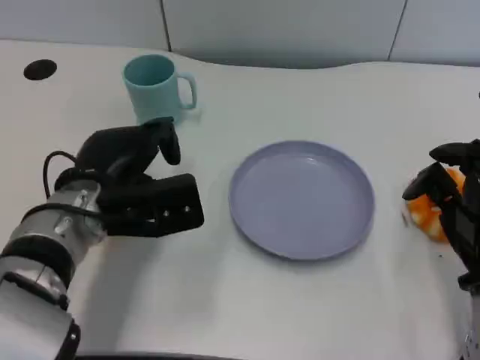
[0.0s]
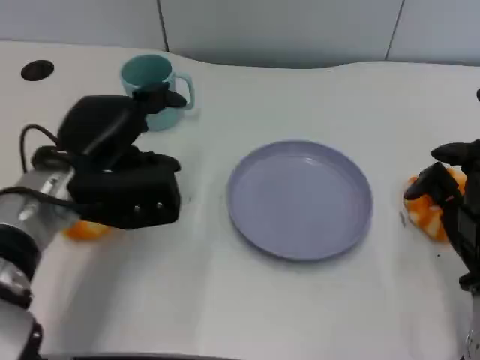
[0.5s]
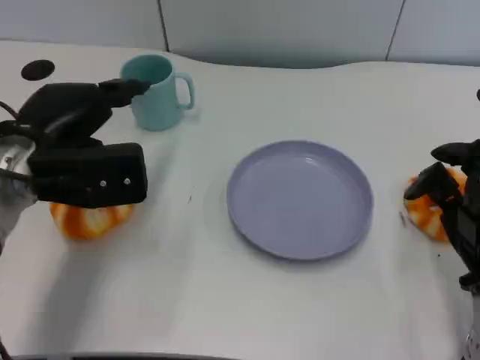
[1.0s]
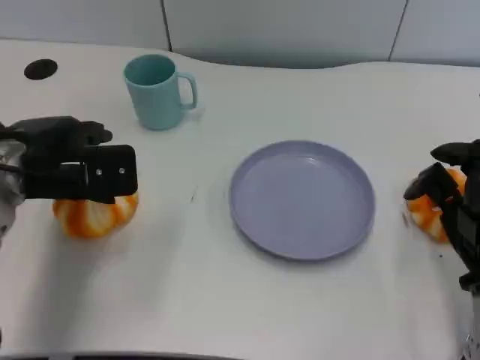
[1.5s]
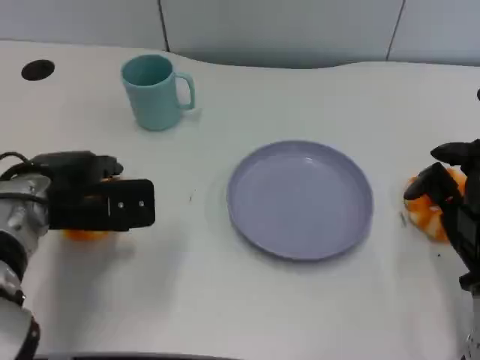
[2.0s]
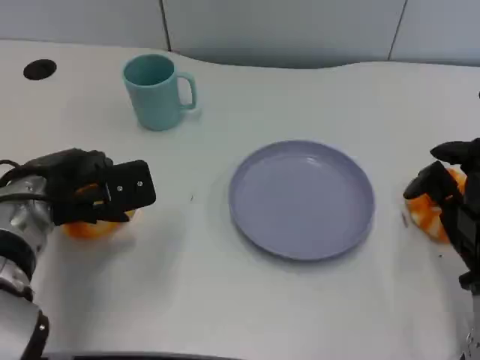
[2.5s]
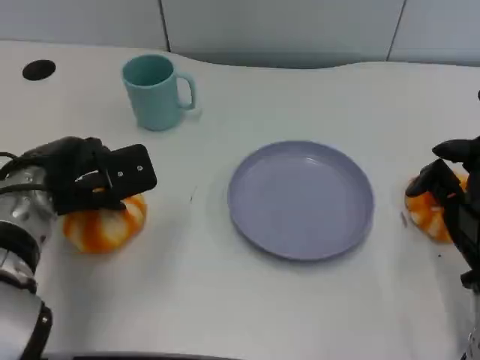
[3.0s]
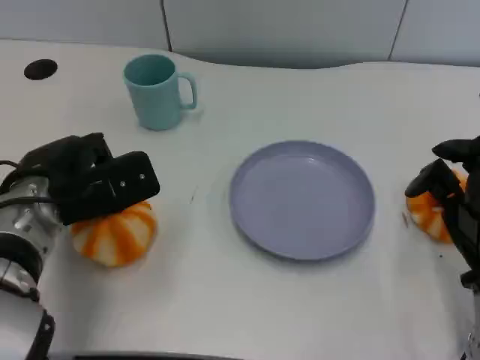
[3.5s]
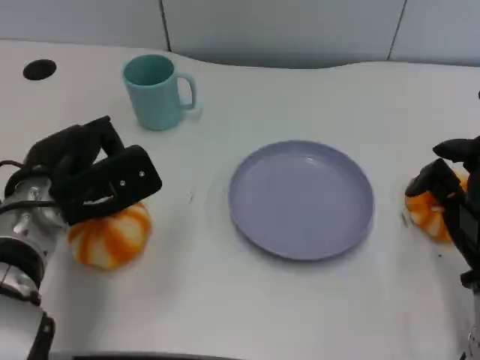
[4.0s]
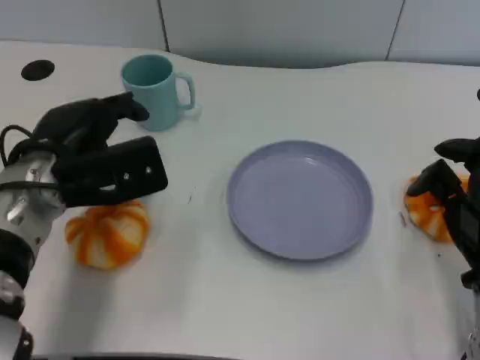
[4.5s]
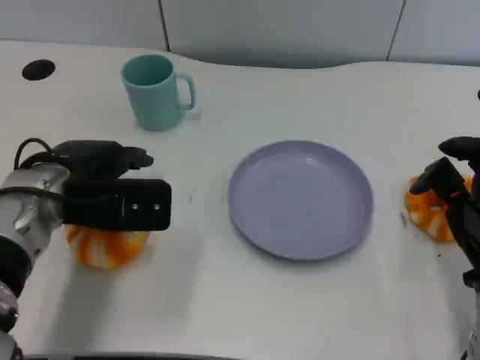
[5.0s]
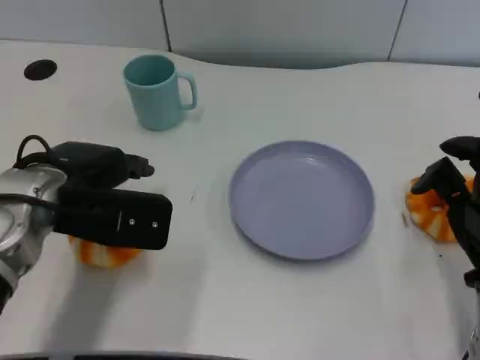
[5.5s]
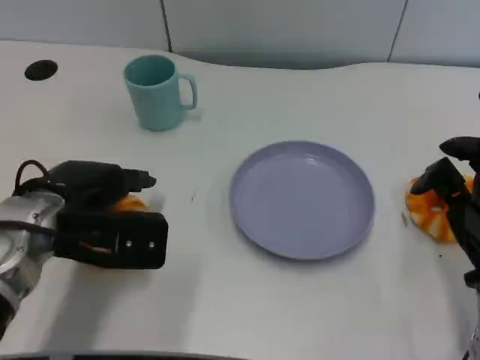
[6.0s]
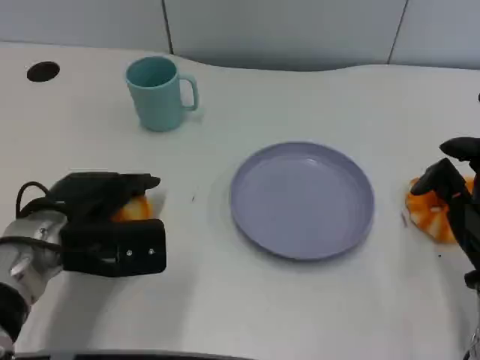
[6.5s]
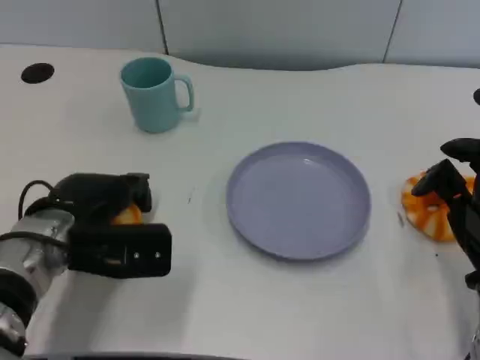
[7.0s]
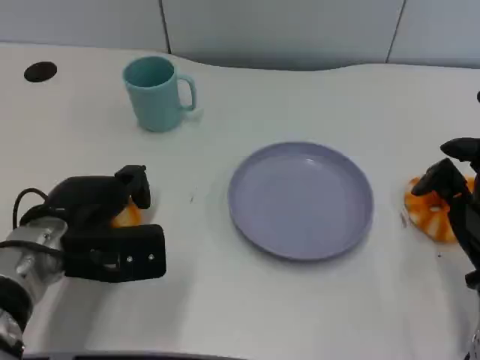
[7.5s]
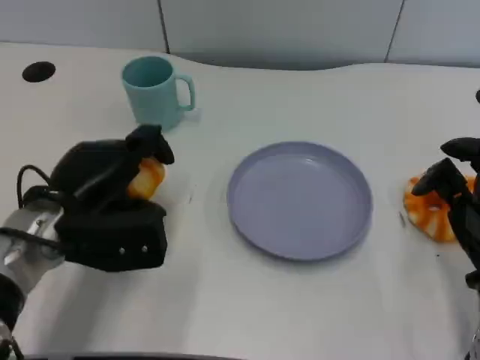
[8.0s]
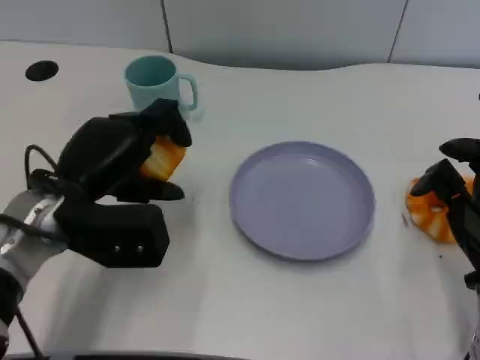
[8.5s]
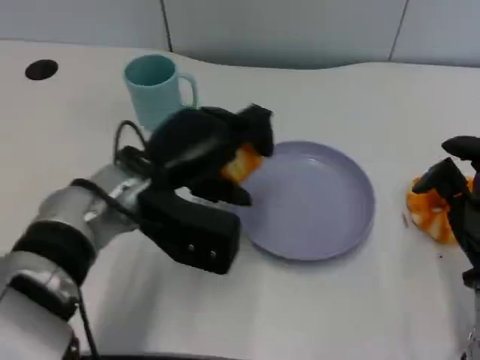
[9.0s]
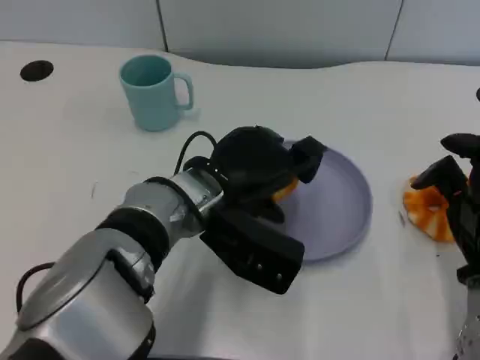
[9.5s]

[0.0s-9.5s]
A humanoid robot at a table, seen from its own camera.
Task of the whole recording: Grasp the bread from the table and place it into the plate.
0.0s to 2.0s: The left hand moves to the left, about 5 cm.
5.5s to 7.5s: The left hand moves downward, about 5 cm.
7.5s to 9.5s: The left hand heads to the right, covering about 15 cm.

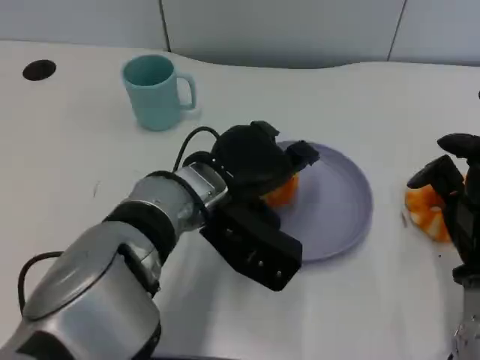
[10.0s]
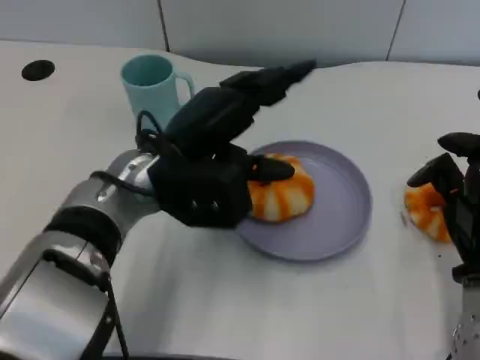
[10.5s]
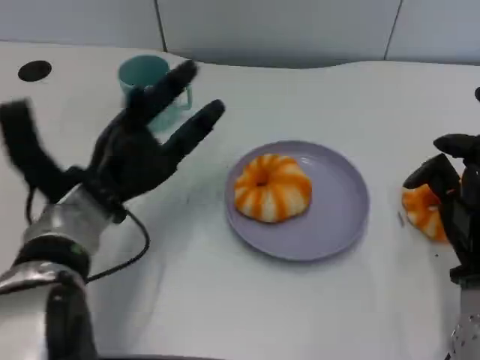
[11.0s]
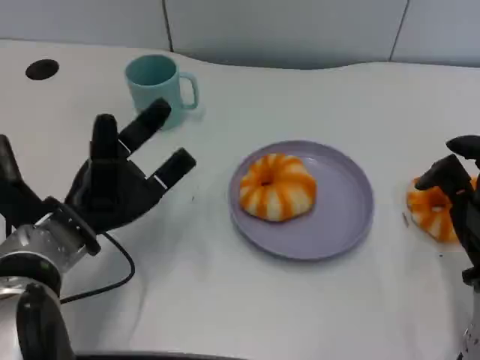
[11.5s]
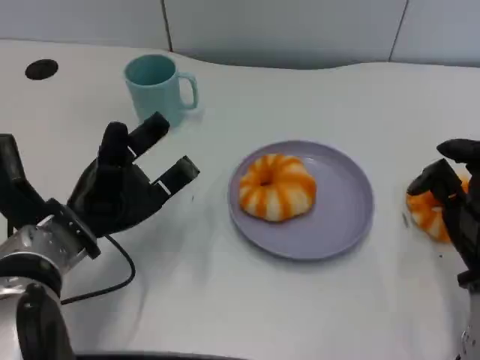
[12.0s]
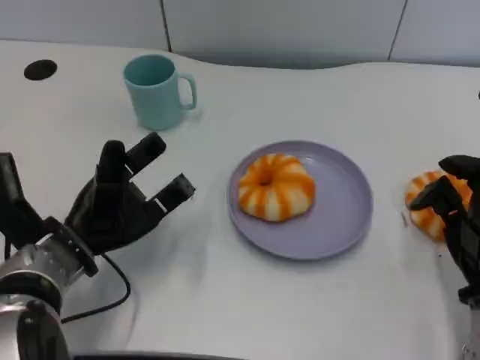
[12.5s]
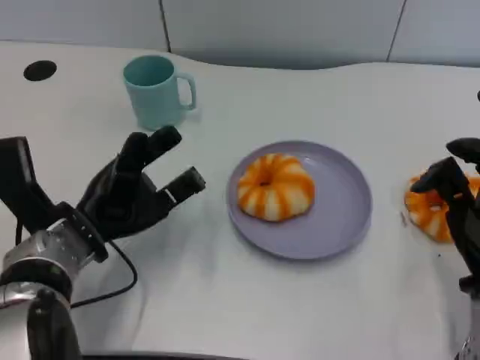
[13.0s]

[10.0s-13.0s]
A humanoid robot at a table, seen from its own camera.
Task of the whole recording: Grasp the bread from the table and place it into the plate.
10.0s to 11.5s: The left hand shifts approximately 15 cm to the left.
11.5s to 13.0s: There are only small adjustments of the hands.

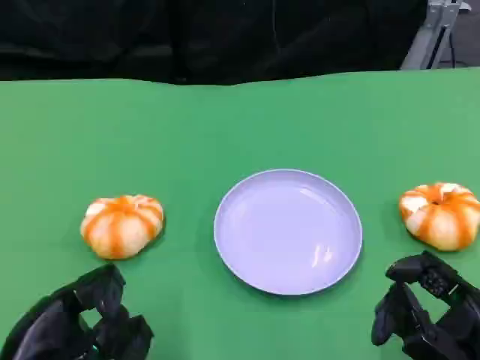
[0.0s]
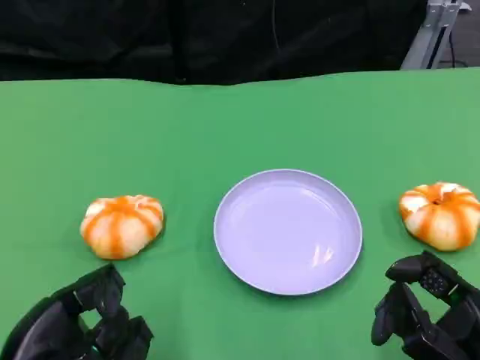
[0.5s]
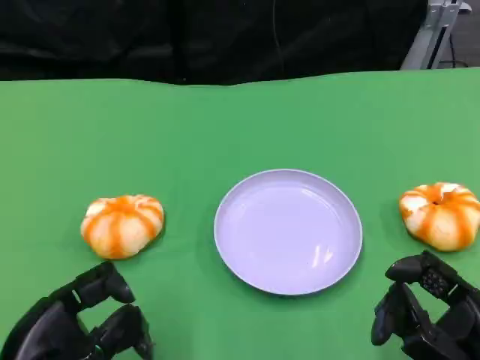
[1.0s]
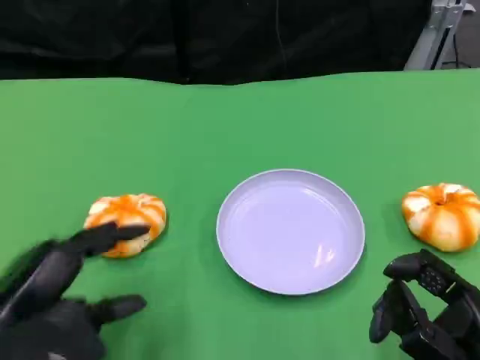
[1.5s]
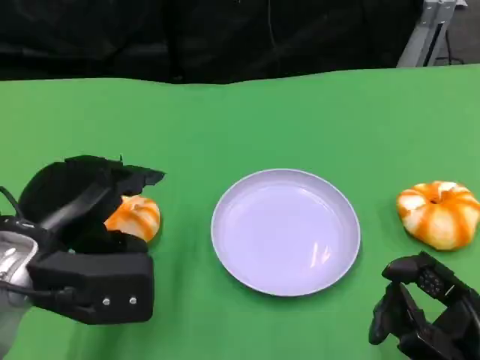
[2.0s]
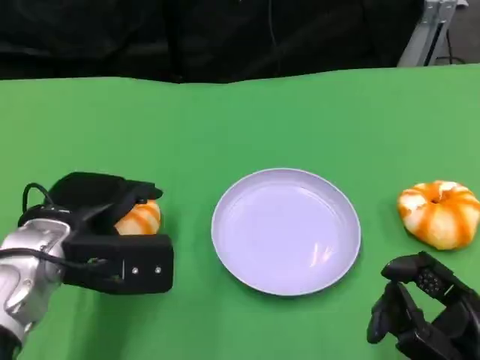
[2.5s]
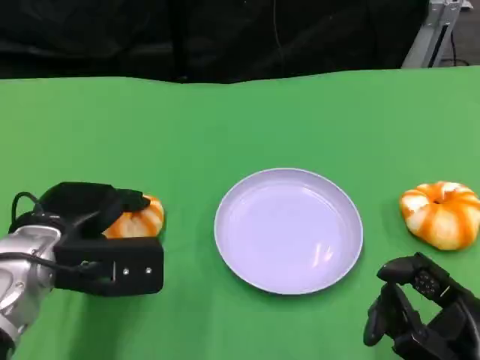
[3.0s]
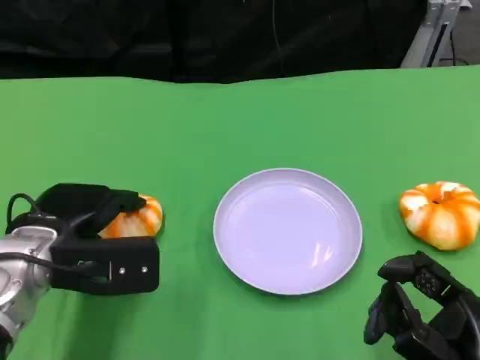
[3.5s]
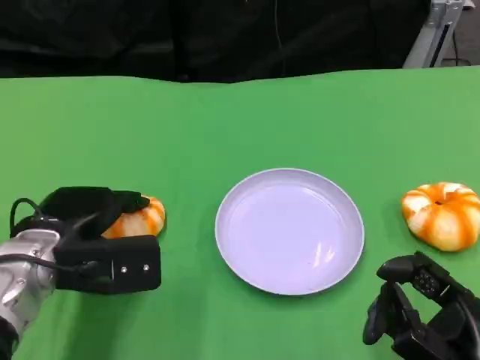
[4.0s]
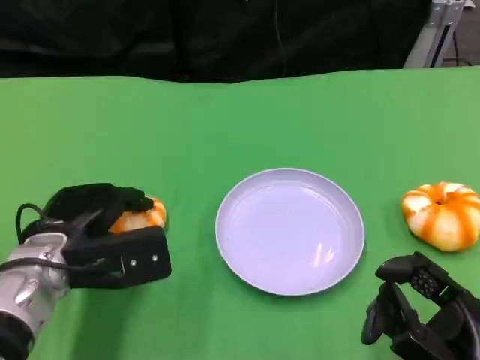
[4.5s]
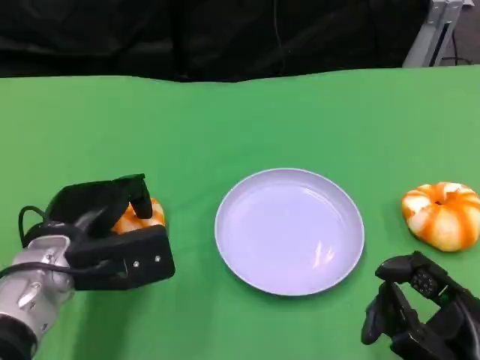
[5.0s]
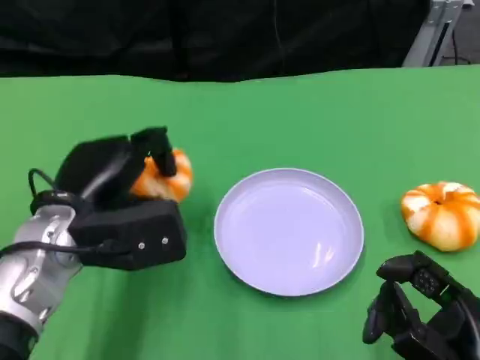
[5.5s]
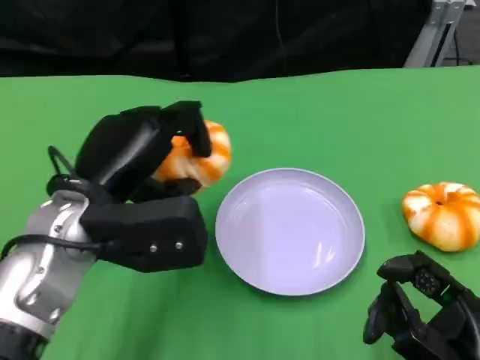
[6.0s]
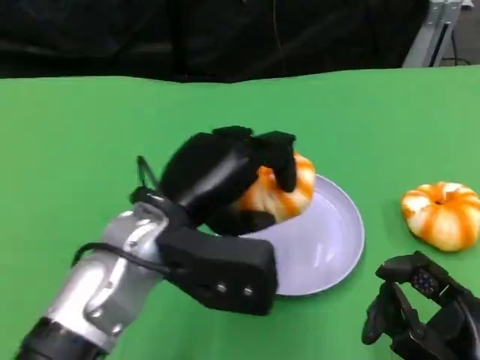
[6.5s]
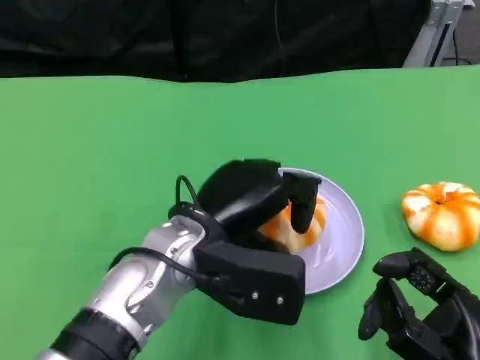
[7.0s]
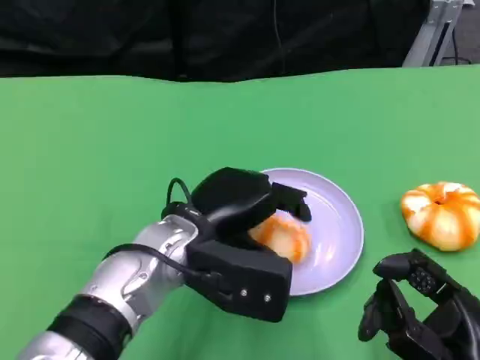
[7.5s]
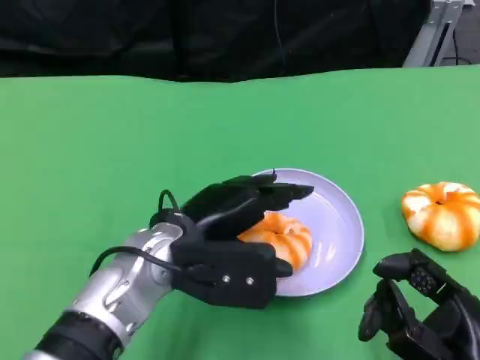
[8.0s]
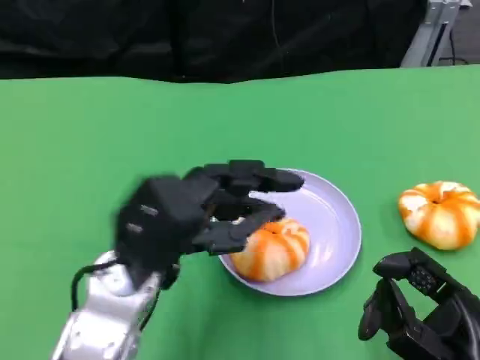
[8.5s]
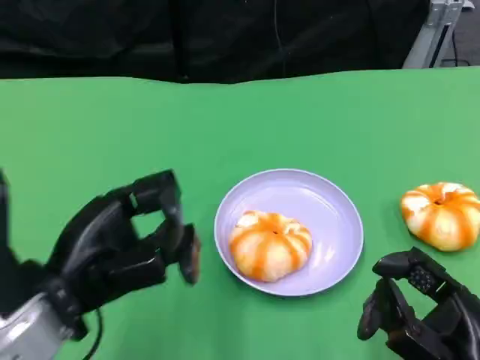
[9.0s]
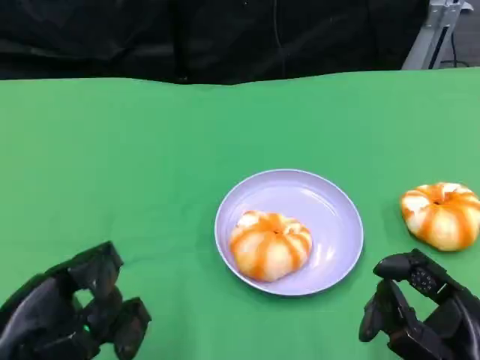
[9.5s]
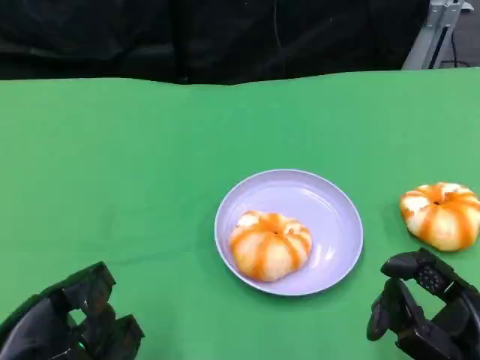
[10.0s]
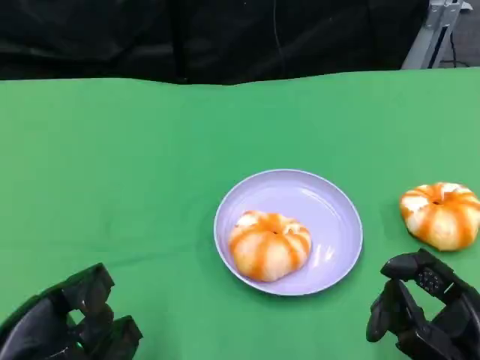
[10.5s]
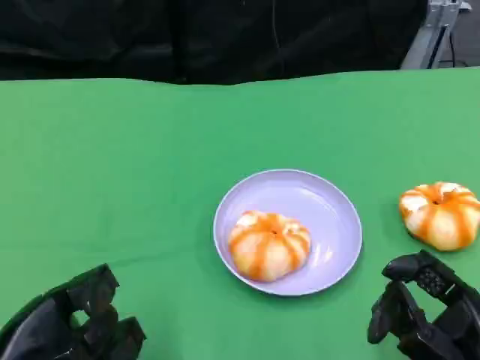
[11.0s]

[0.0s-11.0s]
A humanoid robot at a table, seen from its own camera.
Task of the whole recording: Grasp the bread from the table and place it into the plate.
0.0s to 2.0s: The left hand heads forward and upward, covering approximately 10 cm.
2.0s to 3.5s: The left hand shifts by roughly 5 cm.
5.5s to 7.5s: The left hand goes approximately 10 cm to the right.
7.5s to 9.0s: The left hand shifts roughly 15 cm to the left and backward.
9.0s to 11.0s: The left hand travels downward and to the left by some 10 cm.

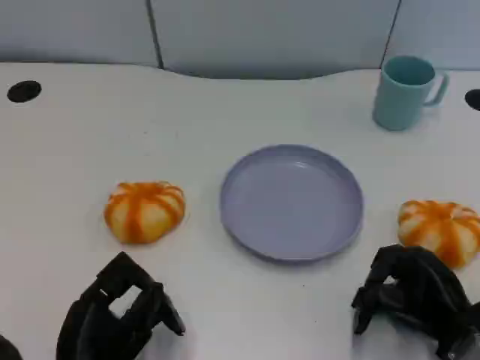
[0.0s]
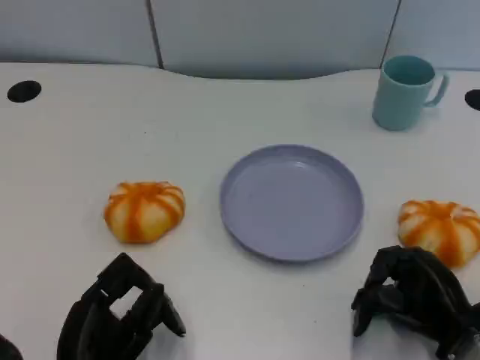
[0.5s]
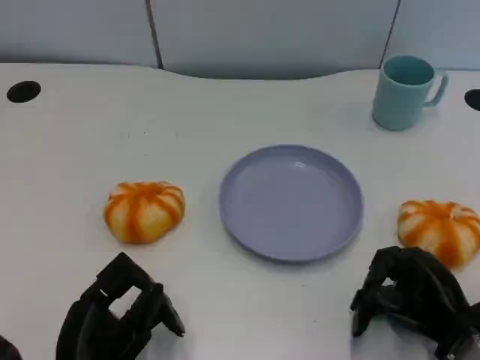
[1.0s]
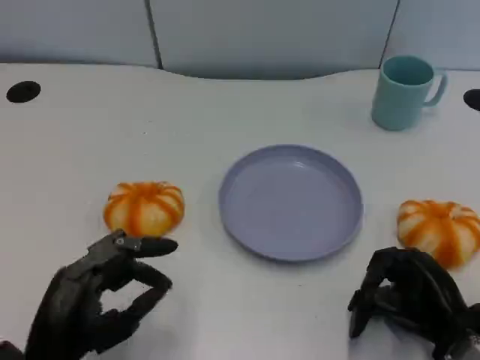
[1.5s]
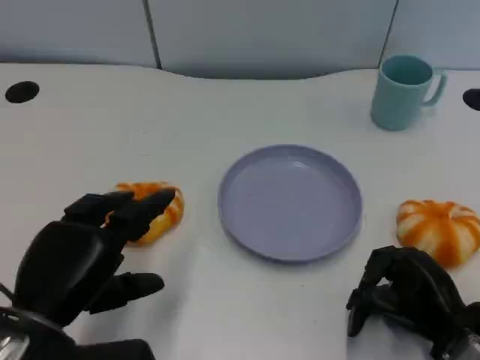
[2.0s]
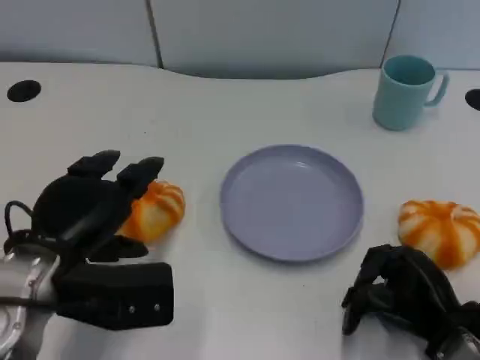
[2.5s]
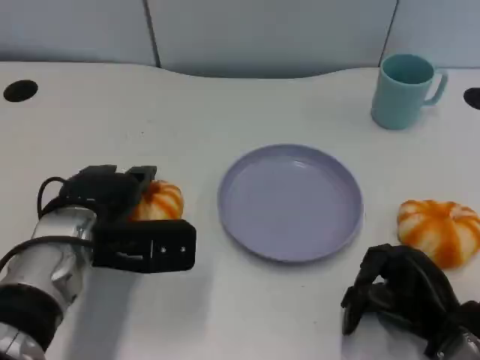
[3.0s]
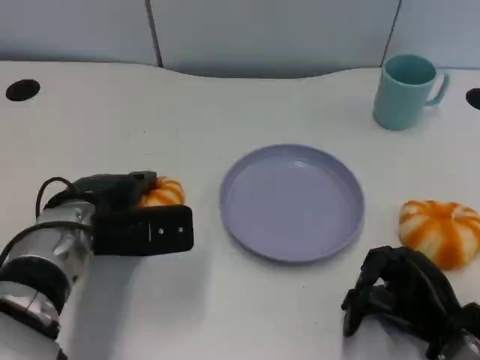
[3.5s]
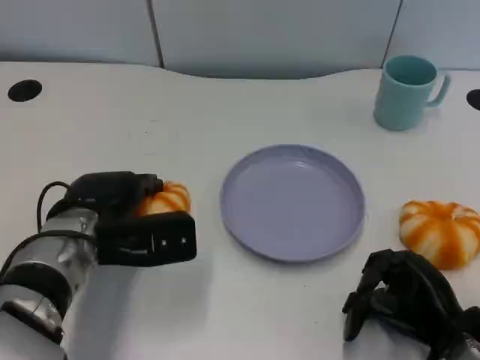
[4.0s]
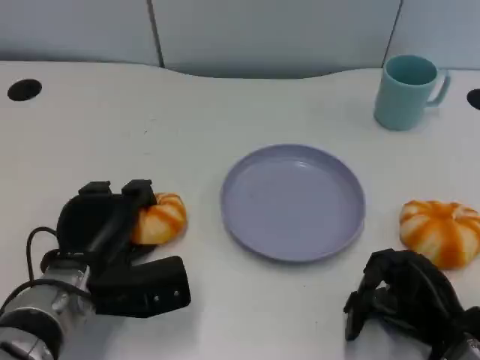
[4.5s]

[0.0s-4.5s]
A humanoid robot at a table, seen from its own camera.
Task of the whole recording: Grasp the bread from the table and place it into the plate.
0.0s to 2.0s: The left hand is displaced upward by about 10 cm.
2.0s to 4.5s: The left hand shifts about 10 cm forward and downward.
